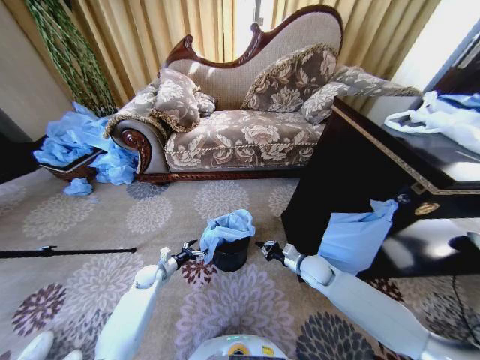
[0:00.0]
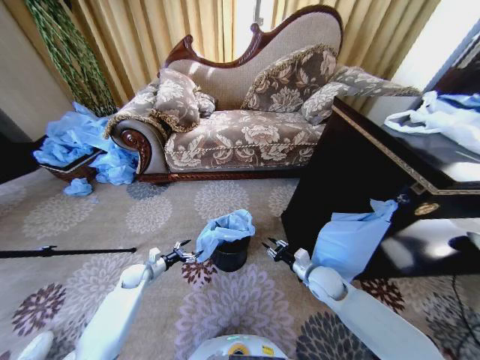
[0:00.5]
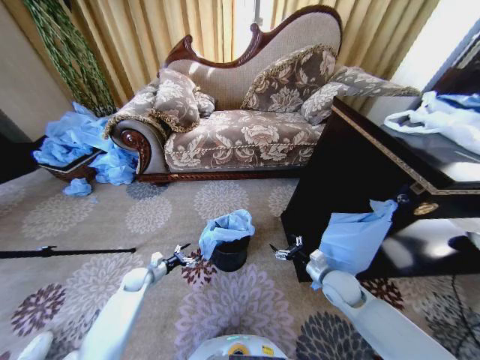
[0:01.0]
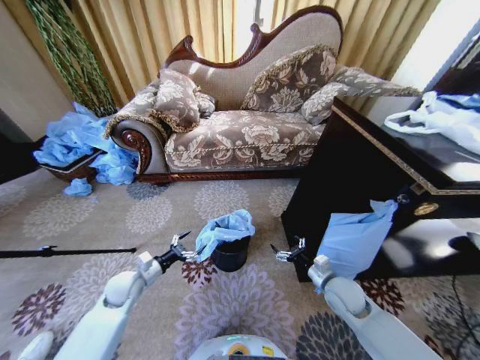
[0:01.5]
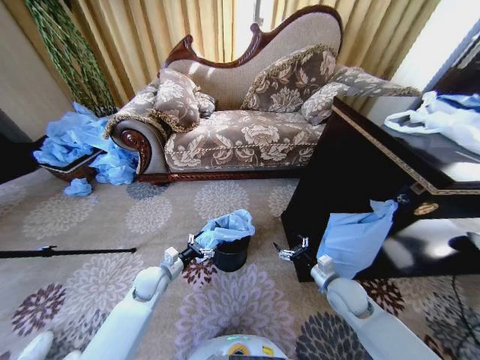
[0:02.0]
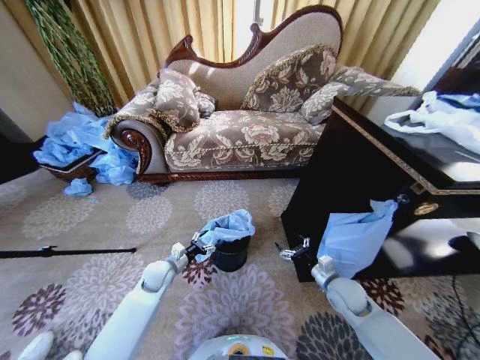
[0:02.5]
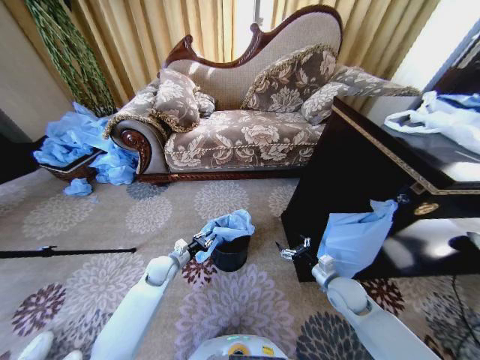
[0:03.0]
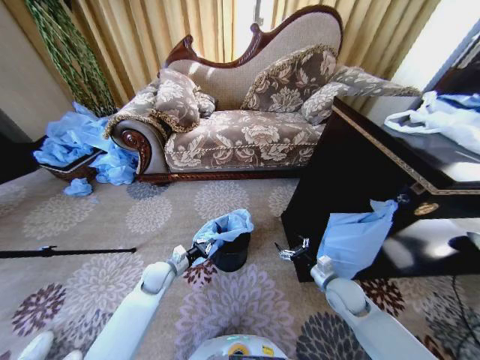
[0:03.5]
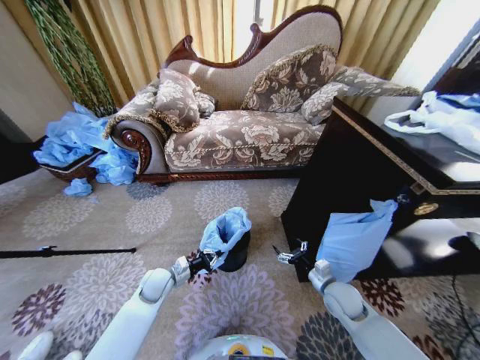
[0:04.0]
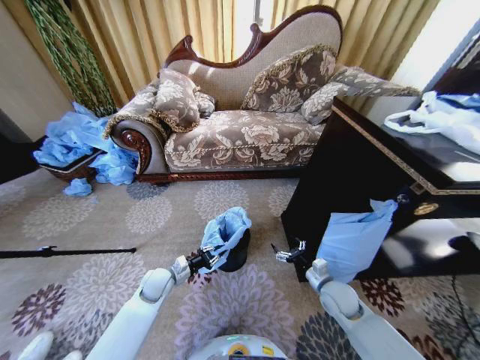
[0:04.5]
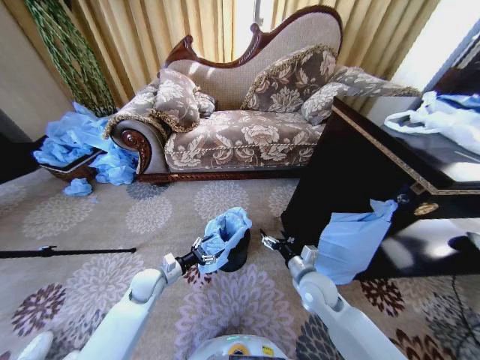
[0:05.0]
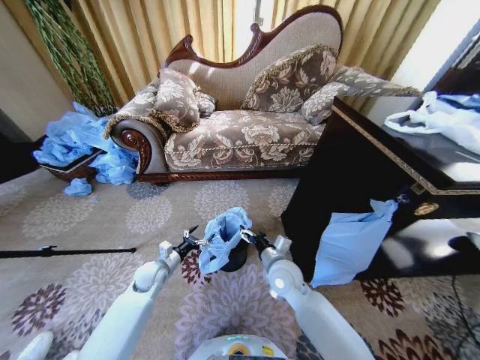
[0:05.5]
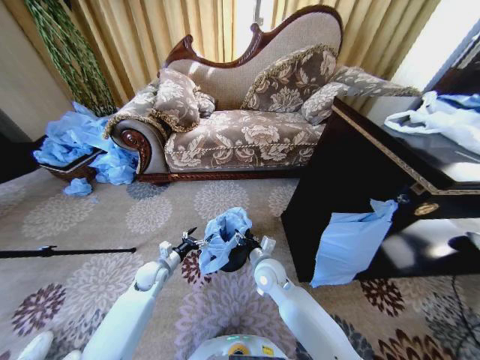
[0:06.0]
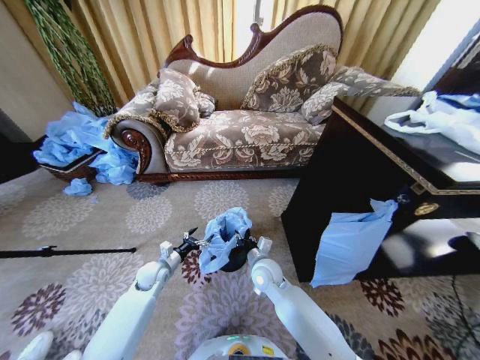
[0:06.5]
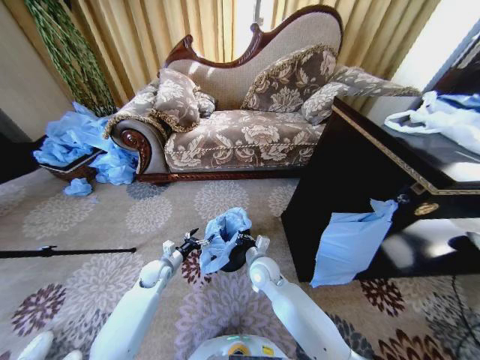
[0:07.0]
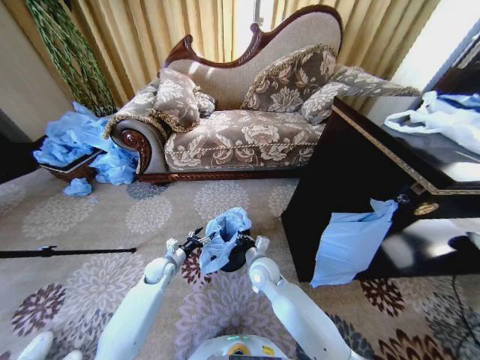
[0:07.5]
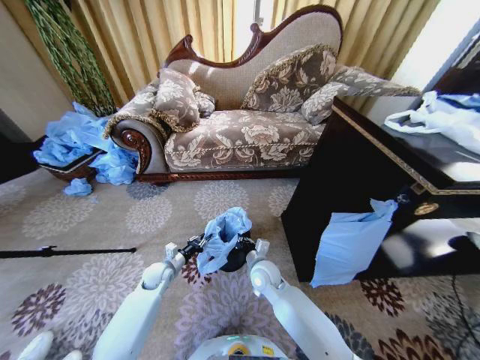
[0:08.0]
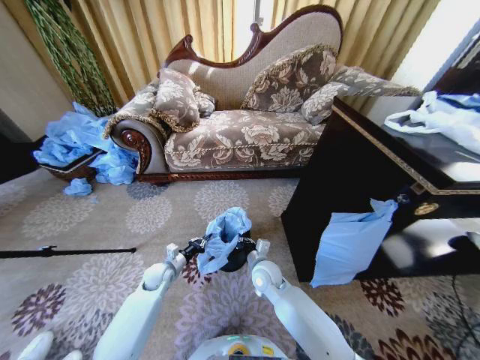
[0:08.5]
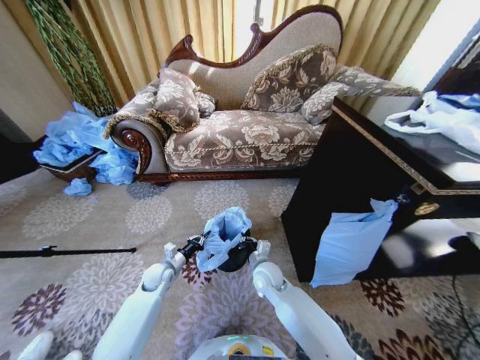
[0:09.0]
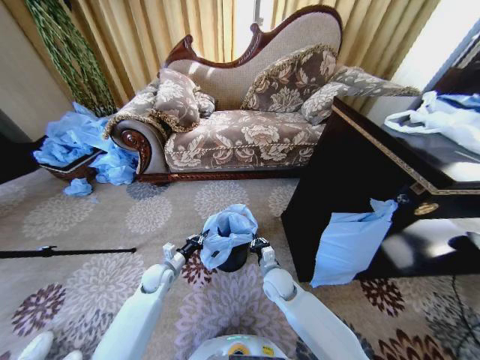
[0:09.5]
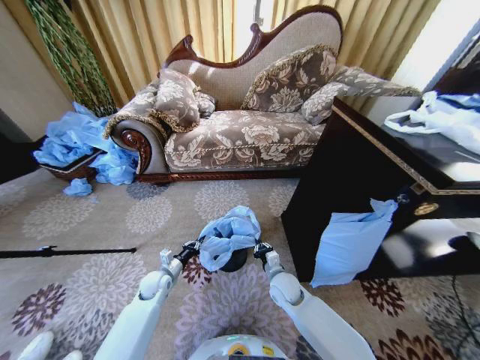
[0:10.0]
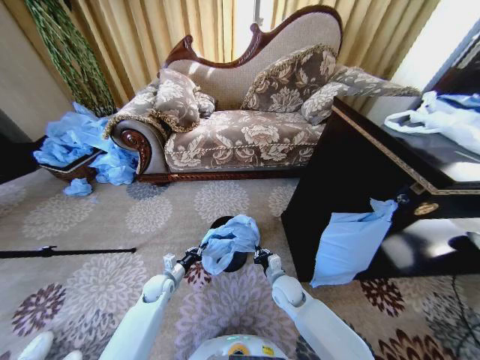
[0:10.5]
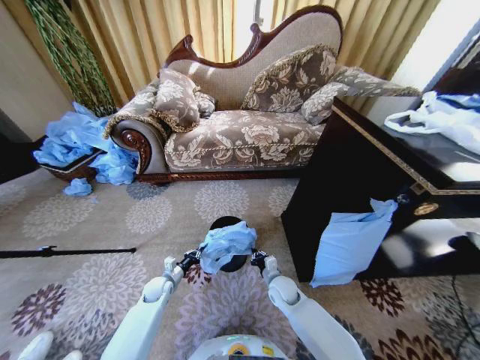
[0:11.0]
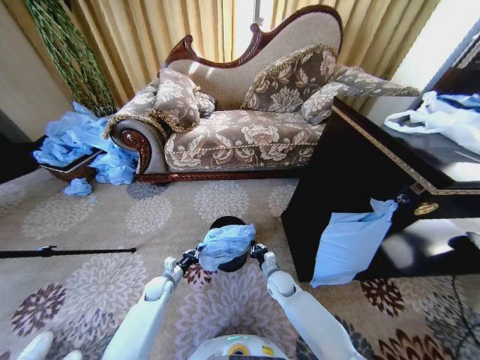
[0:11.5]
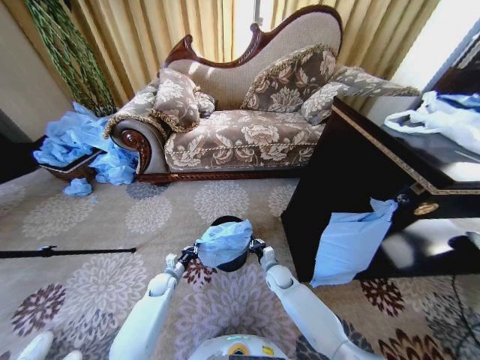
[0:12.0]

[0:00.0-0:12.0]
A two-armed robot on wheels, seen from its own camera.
Task of the whole recording: Place a garbage bag over the trash bin.
0:00.0 to 0:02.0: The right gripper is displaced backward and to the right by roughly 10 cm, and opens; the left gripper goes some 15 cm upward, to the right and backward.
0:02.0 to 0:04.0: The left gripper closes its fingers.
0:04.0 to 0:06.0: The right gripper shifts about 20 cm to the left, and closes; the left gripper shifts by roughly 5 cm, and opens its fingers.
0:06.0 to 0:08.0: The right gripper closes, while the left gripper closes up.
0:08.0 to 0:10.0: The right gripper goes roughly 5 cm to the right.
0:10.0 to 0:12.0: The right gripper goes approximately 10 cm downward and forward, while the left gripper travels downward by some 5 cm.

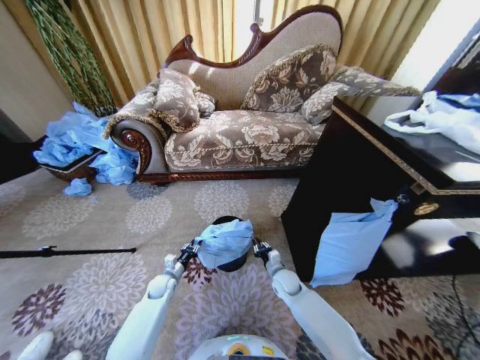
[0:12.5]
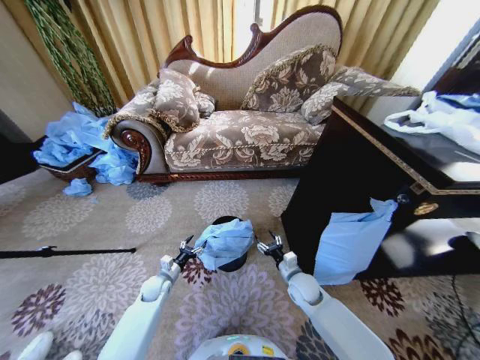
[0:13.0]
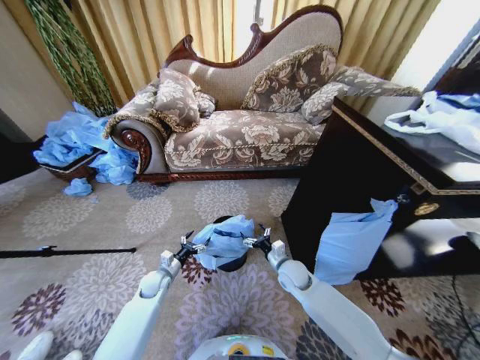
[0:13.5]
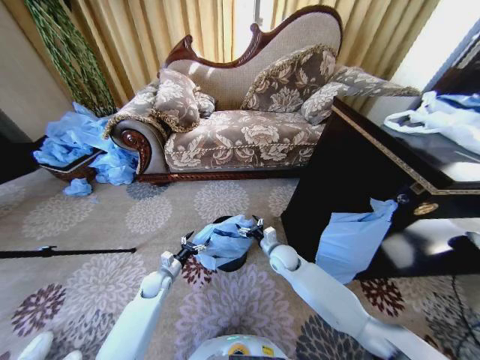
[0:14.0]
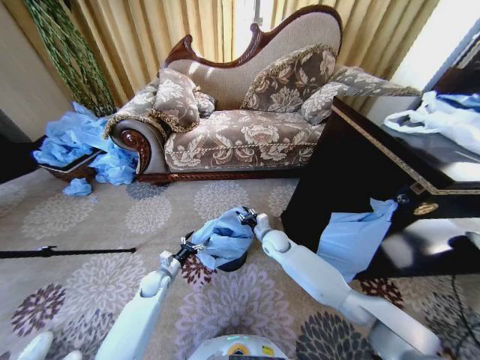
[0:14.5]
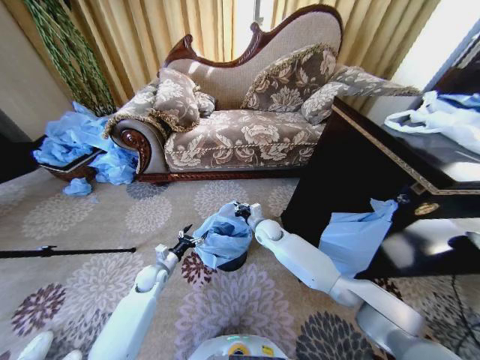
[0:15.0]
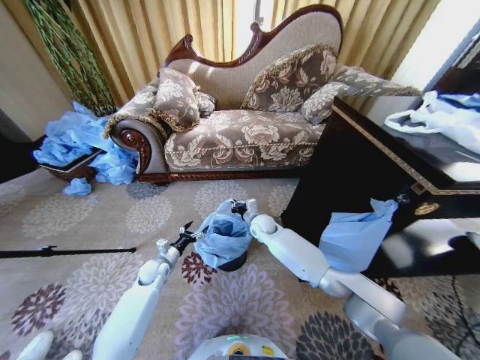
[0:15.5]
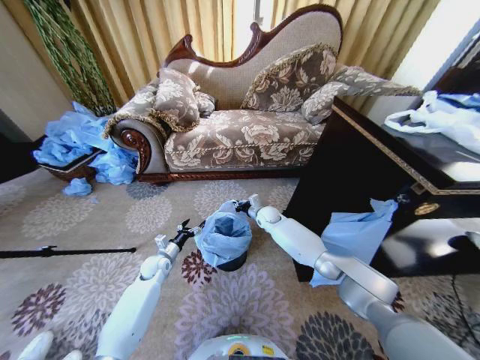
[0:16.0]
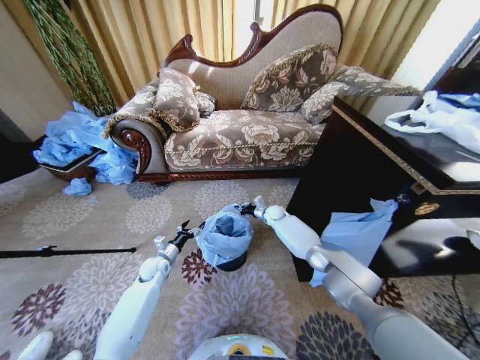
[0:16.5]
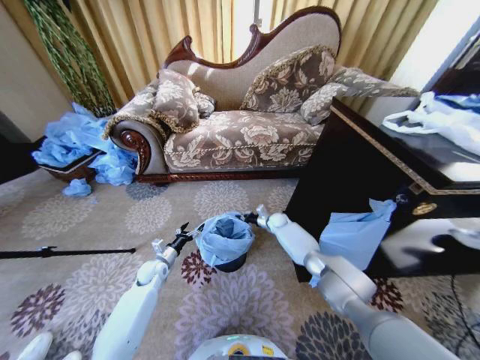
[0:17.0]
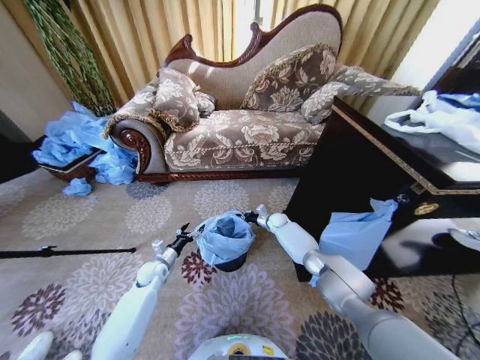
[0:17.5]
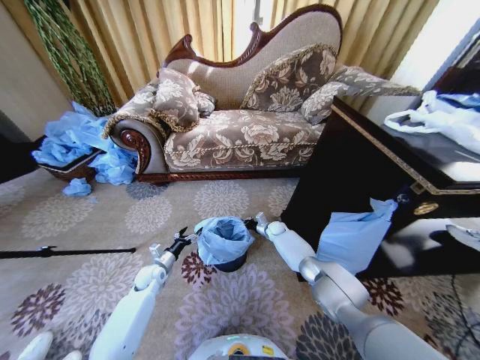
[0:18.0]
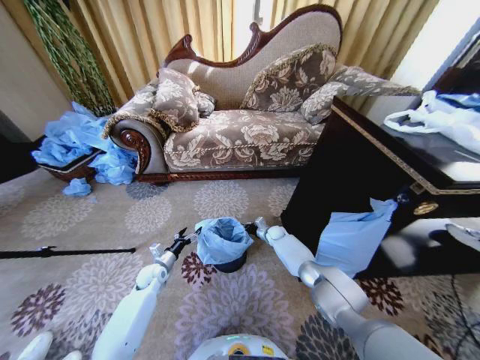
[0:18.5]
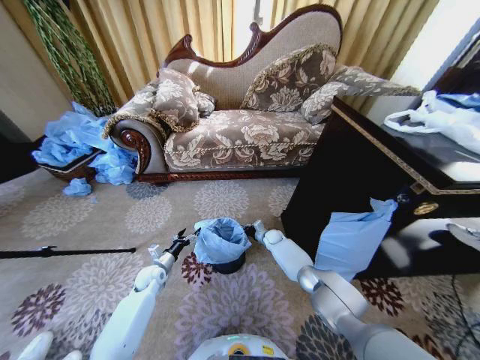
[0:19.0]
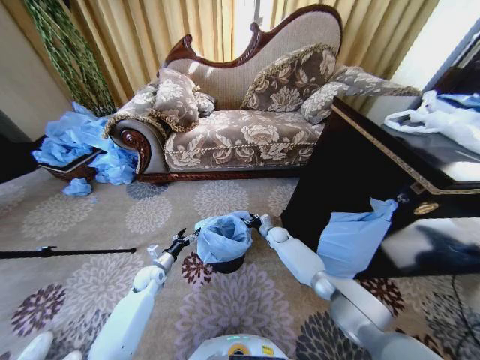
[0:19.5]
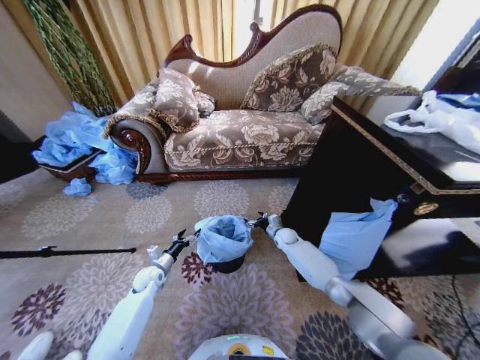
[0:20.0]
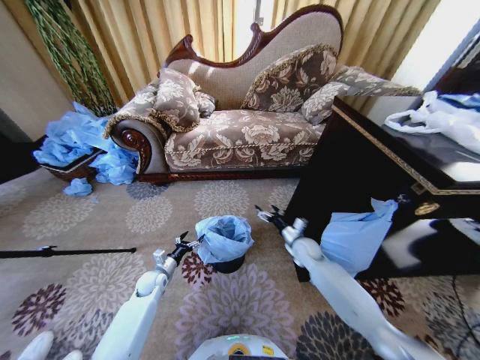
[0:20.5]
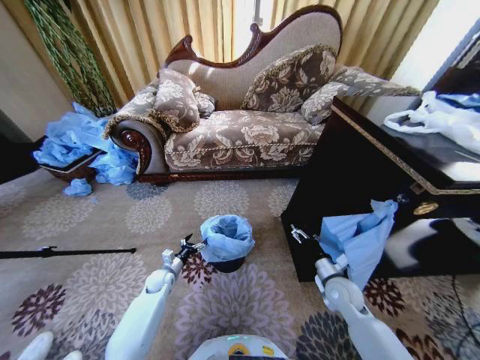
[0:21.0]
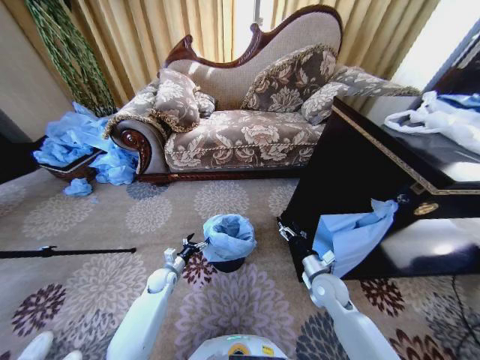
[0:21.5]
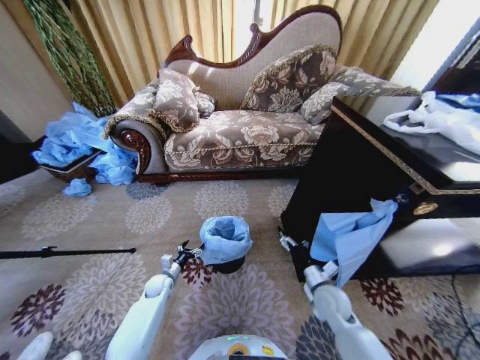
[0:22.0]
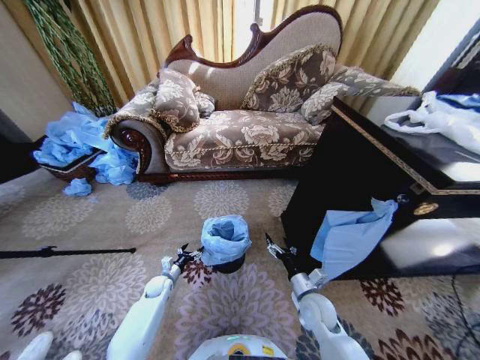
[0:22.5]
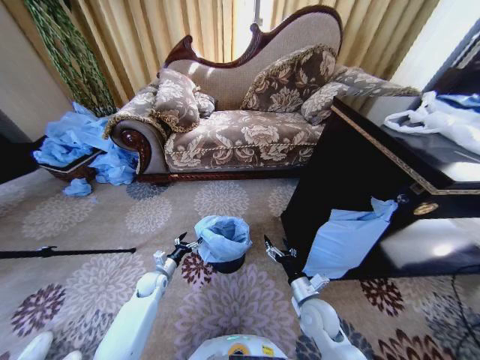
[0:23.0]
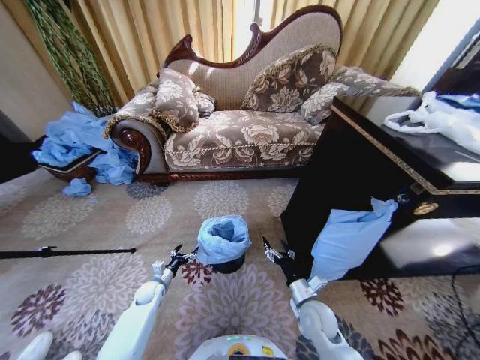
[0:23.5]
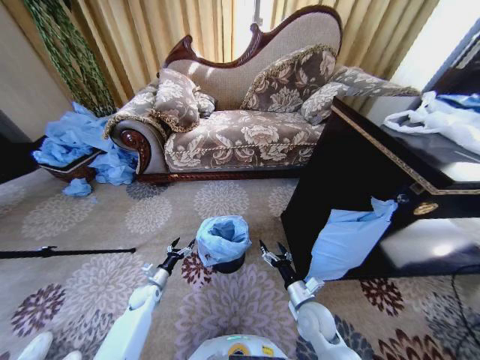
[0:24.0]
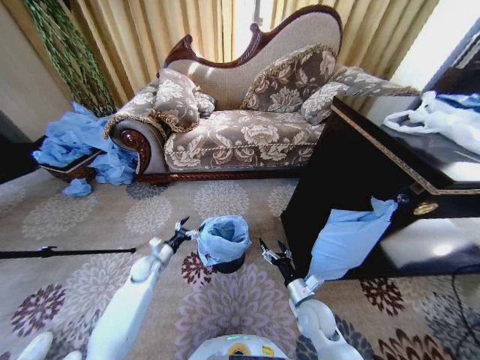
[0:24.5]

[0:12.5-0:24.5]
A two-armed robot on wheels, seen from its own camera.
Task of the whole recording: Place a garbage bag over the trash bin.
0:12.5 to 0:14.5: The left gripper opens up. Meanwhile the right gripper travels upward and forward by about 15 cm, and opens, then closes once more.
0:14.5 to 0:16.5: The right gripper travels forward by approximately 15 cm, and closes, while the left gripper changes place by about 5 cm.
0:16.5 to 0:18.5: The right gripper goes about 10 cm downward.
0:18.5 to 0:20.5: The right gripper heads backward, upward and to the right, covering some 15 cm, and opens its fingers.
0:20.5 to 0:22.5: The right gripper shifts some 20 cm backward, while the left gripper is displaced downward by approximately 5 cm.
0:22.5 to 0:24.5: The left gripper goes up and down, about 10 cm each way, reversing 2 times.

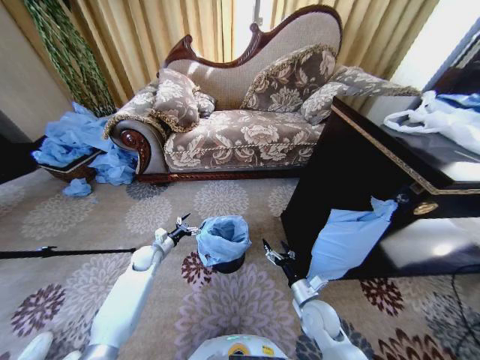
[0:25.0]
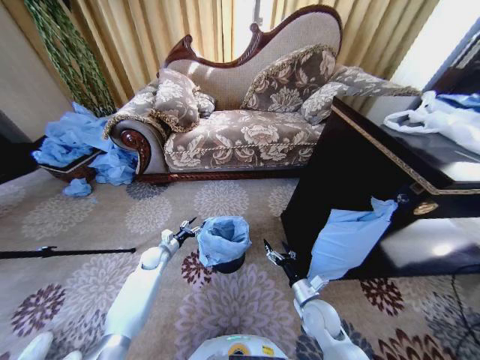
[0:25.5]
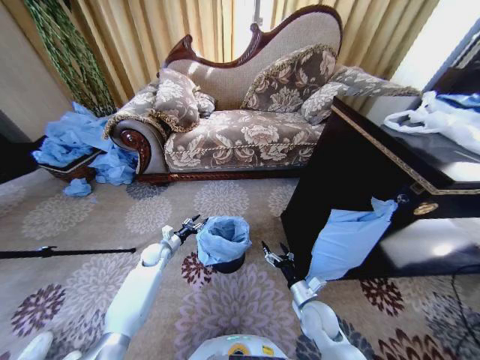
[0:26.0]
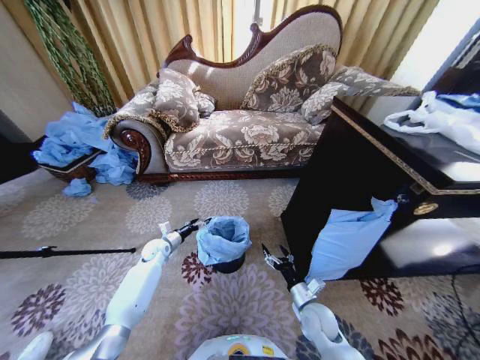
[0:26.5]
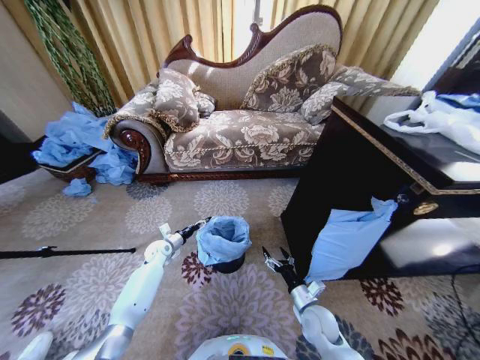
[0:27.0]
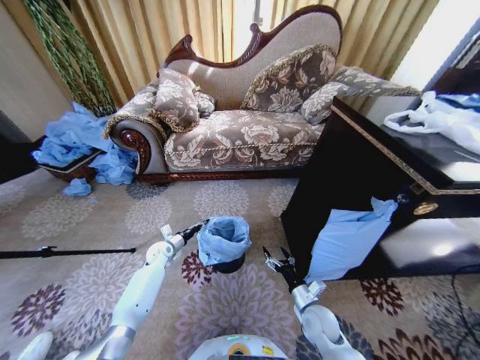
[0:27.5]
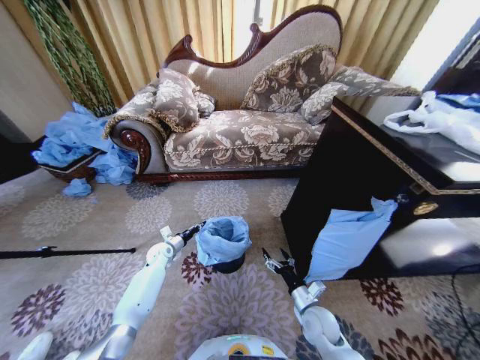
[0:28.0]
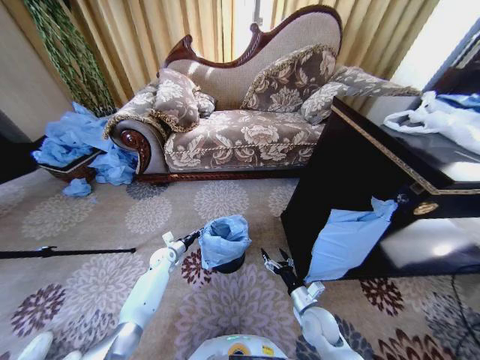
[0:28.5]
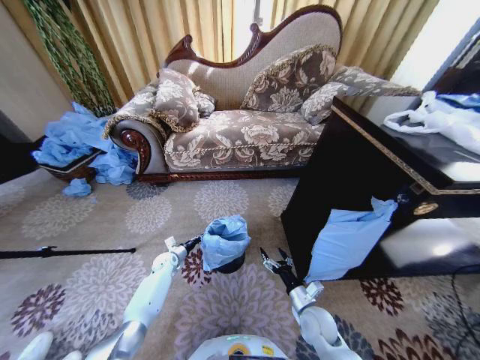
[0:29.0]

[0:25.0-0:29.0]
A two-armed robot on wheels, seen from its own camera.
Task of the whole recording: Place a garbage bag over the trash bin.
0:25.0 to 0:27.0: The left gripper closes and opens again.
0:27.0 to 0:29.0: The left gripper travels downward by roughly 10 cm, and closes up.
